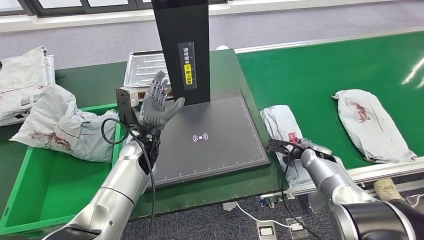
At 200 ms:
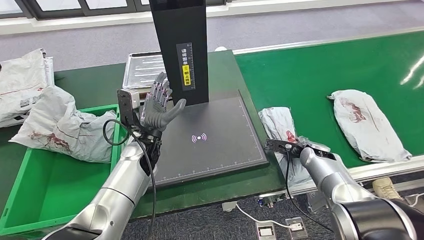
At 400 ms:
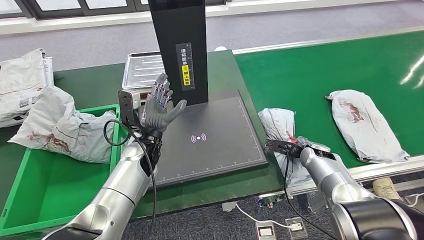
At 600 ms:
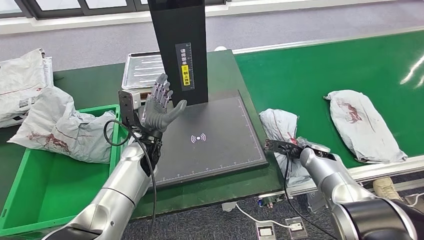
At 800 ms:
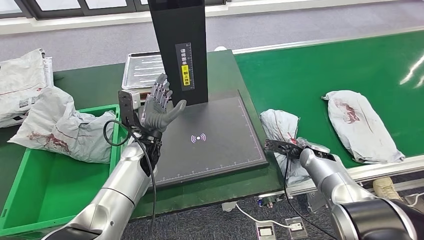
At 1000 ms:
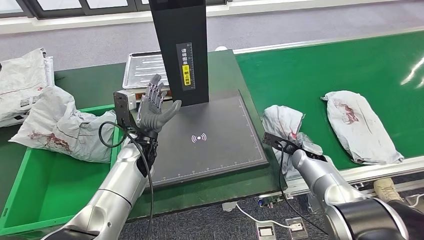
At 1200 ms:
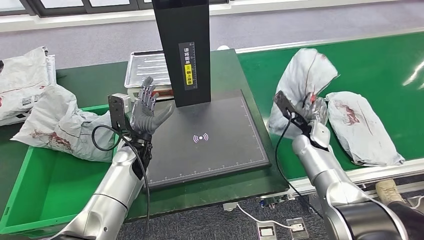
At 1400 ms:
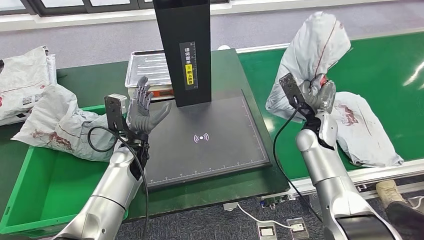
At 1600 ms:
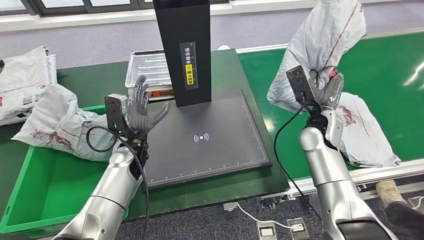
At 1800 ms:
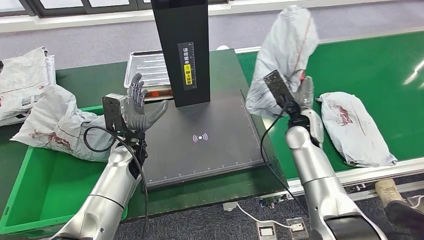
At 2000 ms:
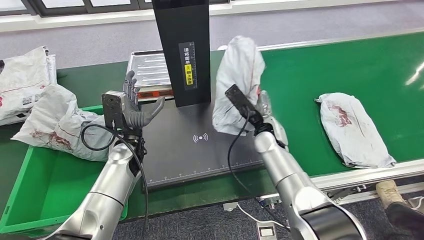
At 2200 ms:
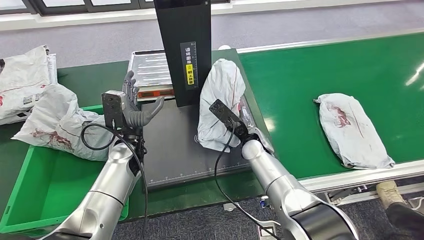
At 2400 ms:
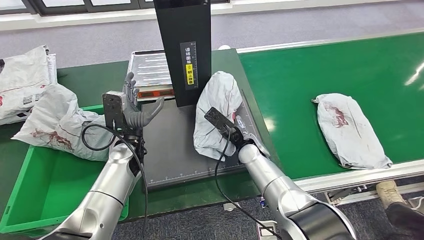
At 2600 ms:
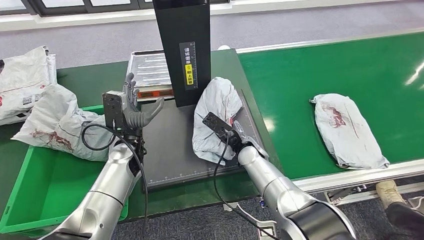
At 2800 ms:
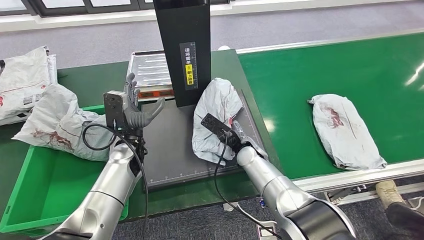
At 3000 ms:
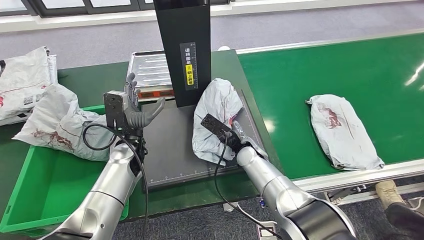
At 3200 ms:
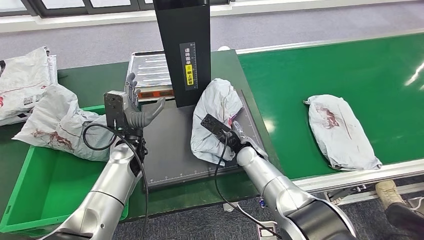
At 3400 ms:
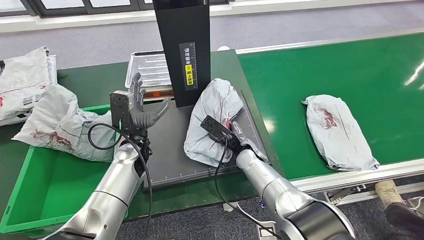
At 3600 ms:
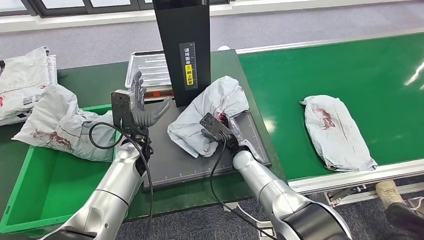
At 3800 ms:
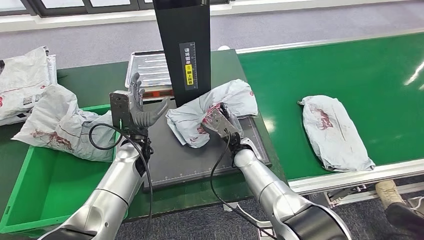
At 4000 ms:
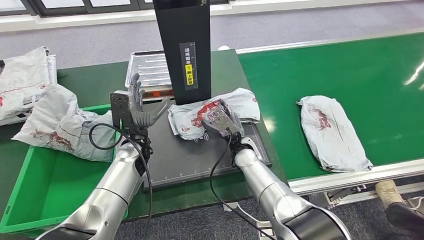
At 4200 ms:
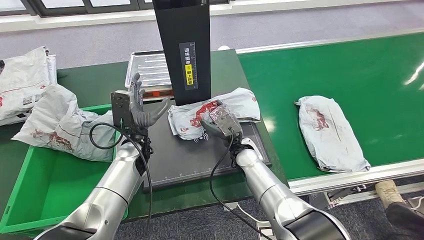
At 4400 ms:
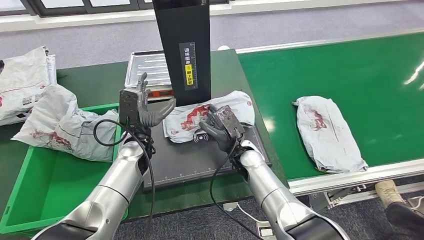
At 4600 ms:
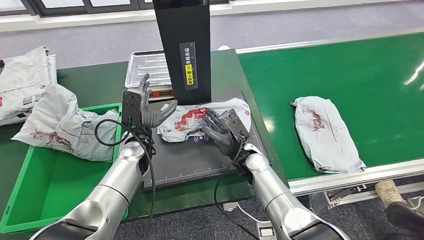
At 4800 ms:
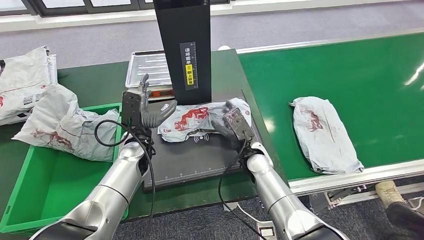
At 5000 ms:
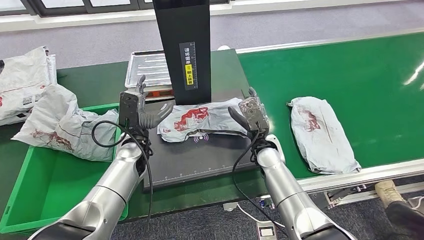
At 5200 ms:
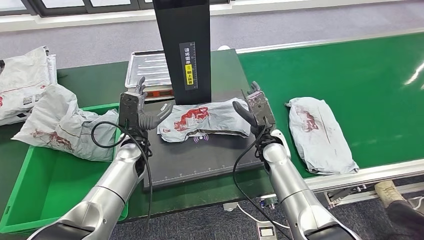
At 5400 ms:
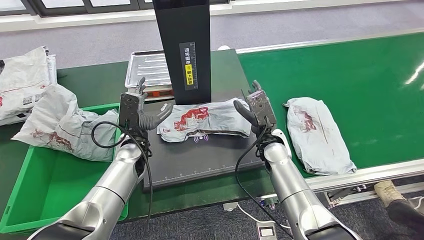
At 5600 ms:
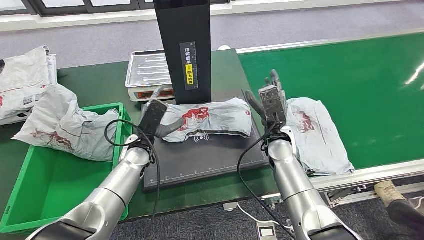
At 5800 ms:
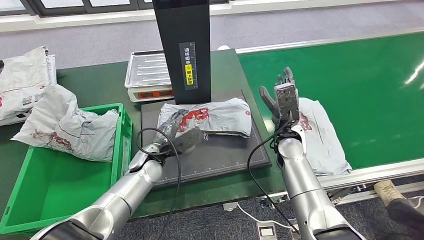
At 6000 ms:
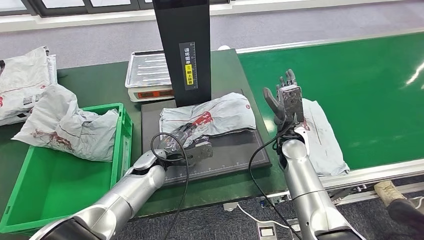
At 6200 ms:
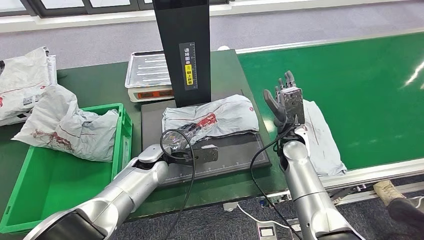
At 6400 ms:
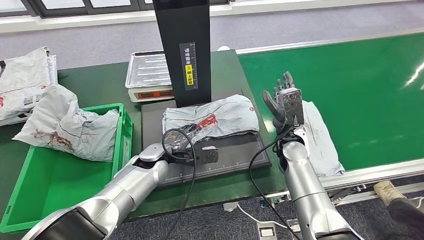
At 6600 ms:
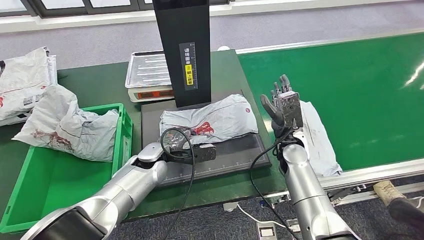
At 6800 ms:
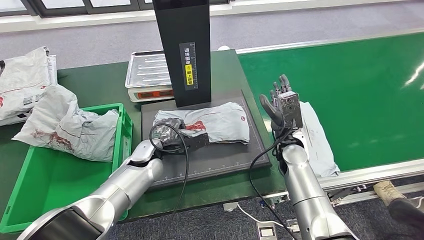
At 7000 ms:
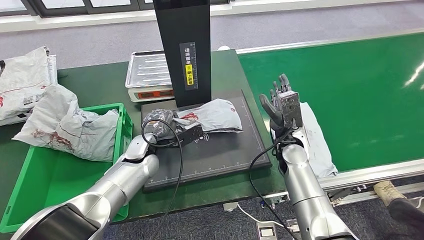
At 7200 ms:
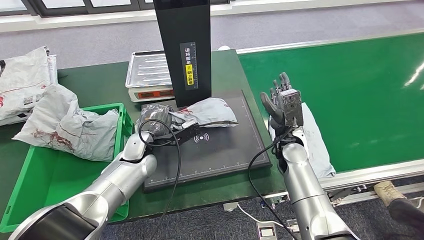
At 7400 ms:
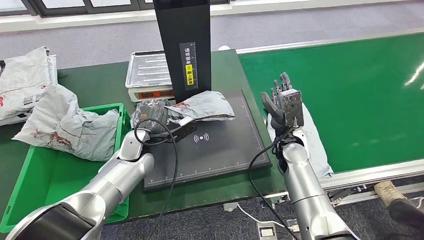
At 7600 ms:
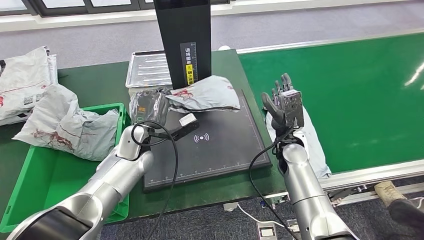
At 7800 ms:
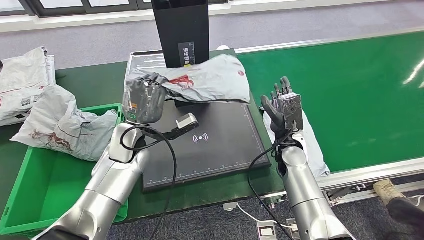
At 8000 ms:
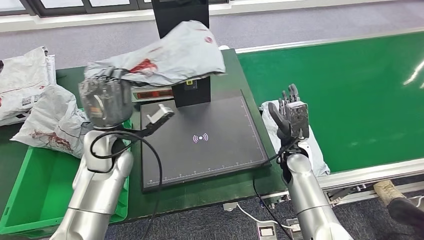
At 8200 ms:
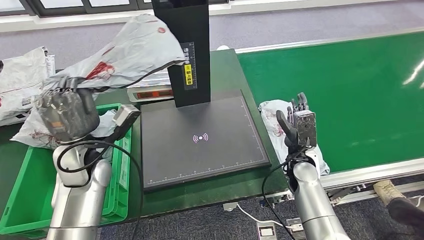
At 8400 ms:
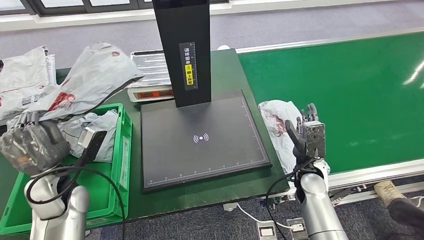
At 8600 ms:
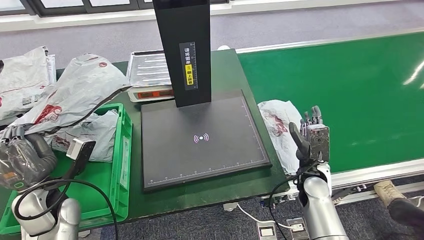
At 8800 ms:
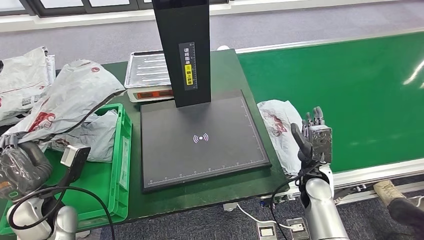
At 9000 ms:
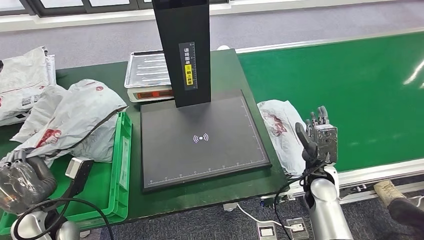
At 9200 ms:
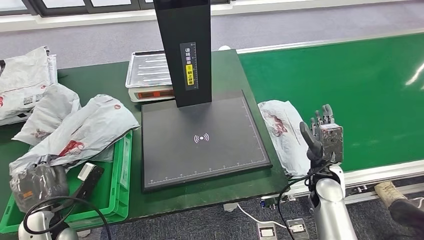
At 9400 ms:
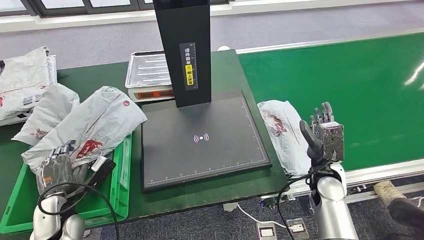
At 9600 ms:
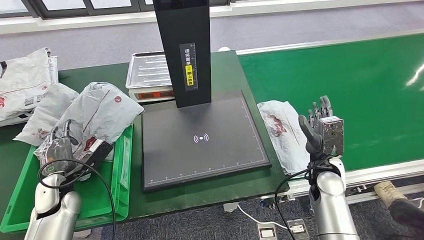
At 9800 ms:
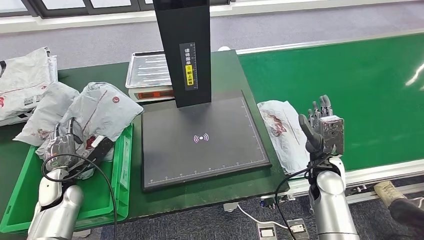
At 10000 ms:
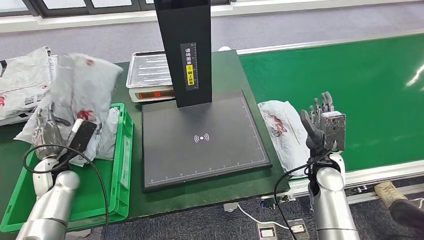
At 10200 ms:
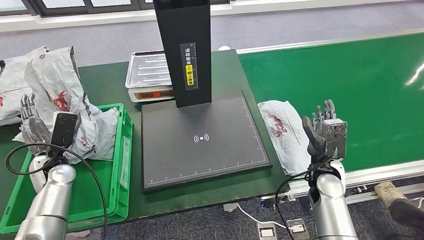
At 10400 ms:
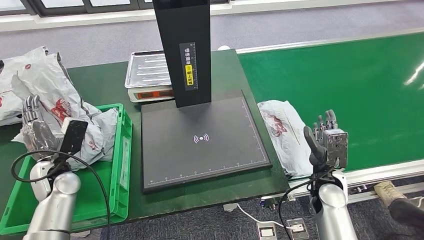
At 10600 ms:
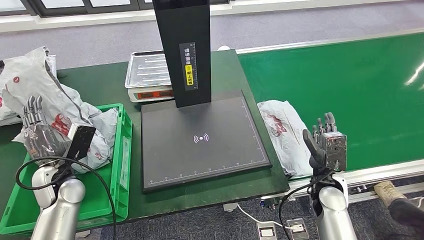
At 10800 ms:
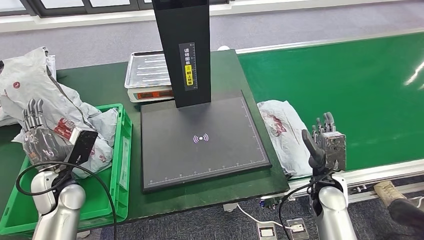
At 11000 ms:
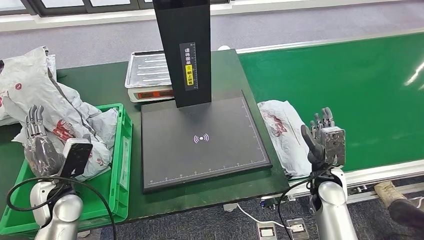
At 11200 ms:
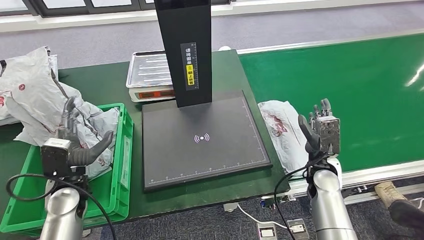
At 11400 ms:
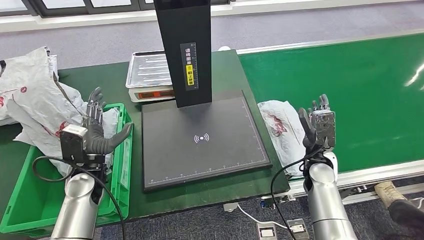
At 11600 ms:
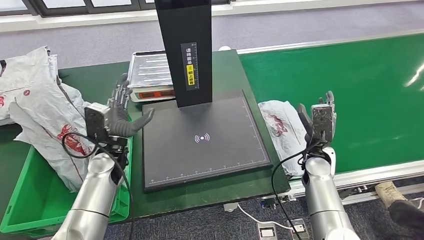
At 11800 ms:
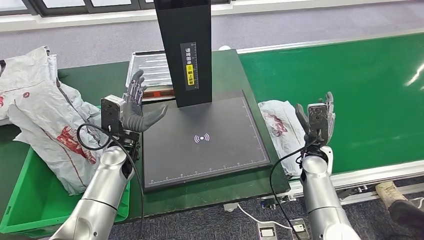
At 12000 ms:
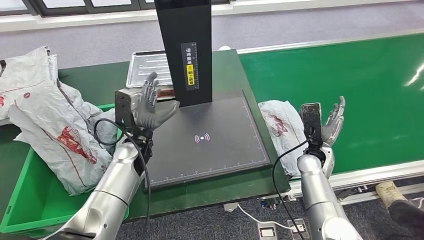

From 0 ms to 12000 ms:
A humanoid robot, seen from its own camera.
Step, from 0 ms to 1800 ms: Pick up the parcel from the conveyor belt.
Step, from 2200 ms to 5800 ms: Place the parcel onto the inbound machine.
Step, from 6000 ms to 7800 ms: Pick up the parcel from the inbound machine.
Step, from 8200 ms to 11200 ms: Place the parcel into the delivery box.
From 6000 ms to 7600 ms: The left hand shifts approximately 5 cm upward.
From 9000 ms to 10400 ms: The left hand goes approximately 10 cm forward.

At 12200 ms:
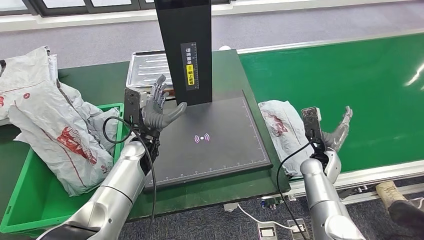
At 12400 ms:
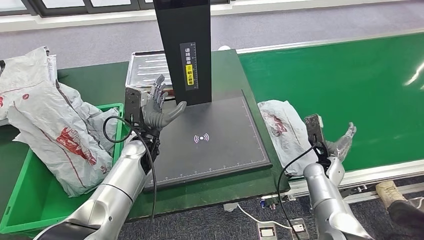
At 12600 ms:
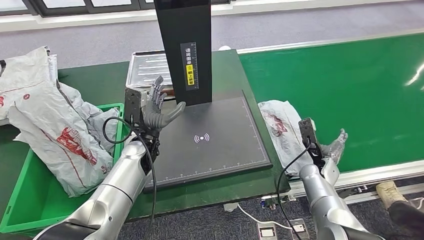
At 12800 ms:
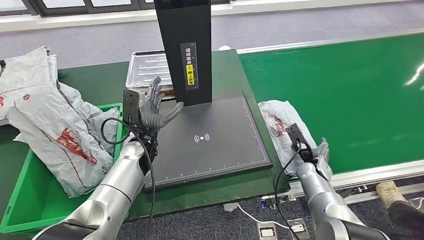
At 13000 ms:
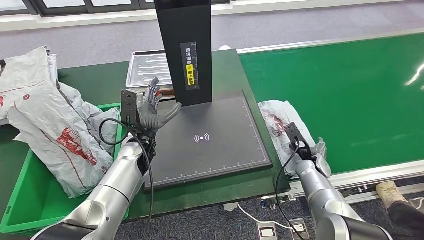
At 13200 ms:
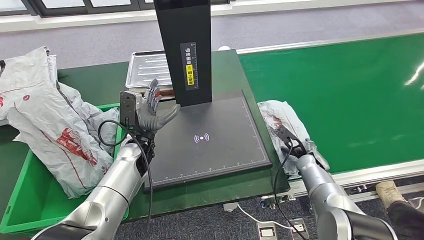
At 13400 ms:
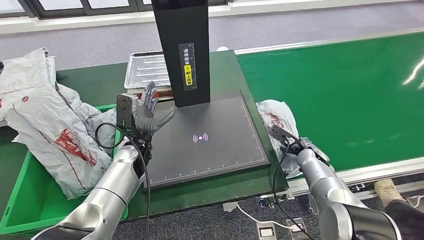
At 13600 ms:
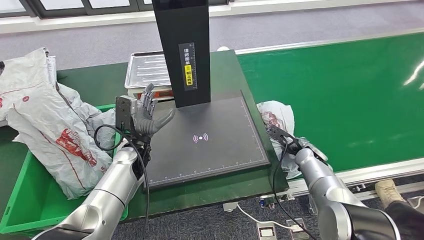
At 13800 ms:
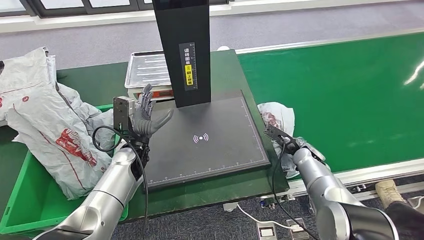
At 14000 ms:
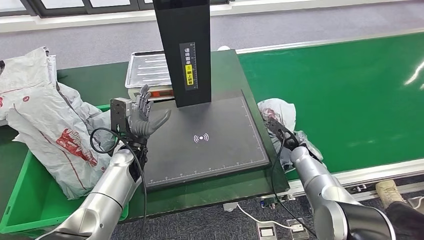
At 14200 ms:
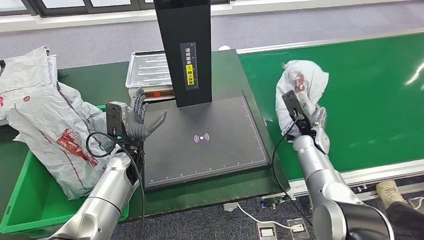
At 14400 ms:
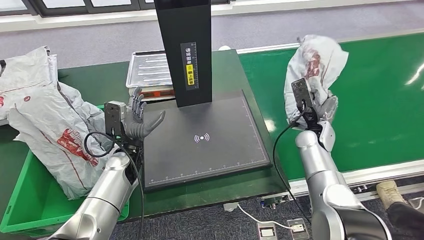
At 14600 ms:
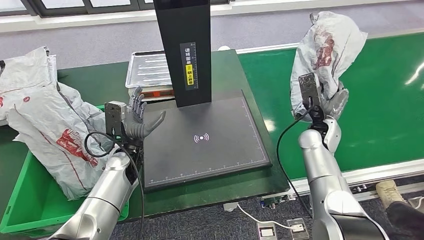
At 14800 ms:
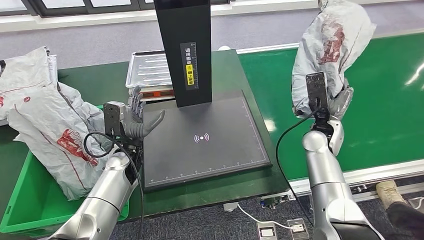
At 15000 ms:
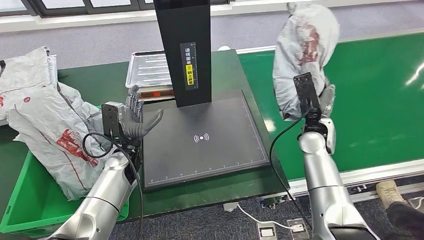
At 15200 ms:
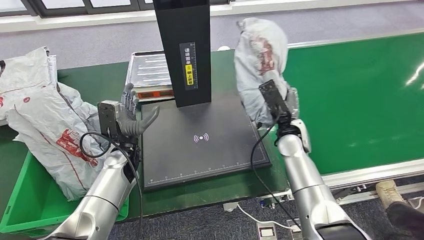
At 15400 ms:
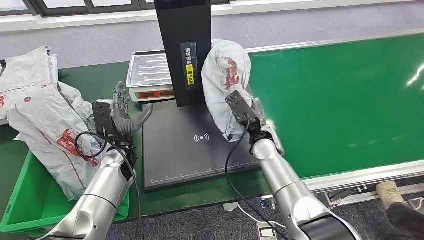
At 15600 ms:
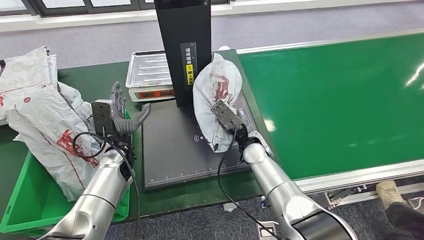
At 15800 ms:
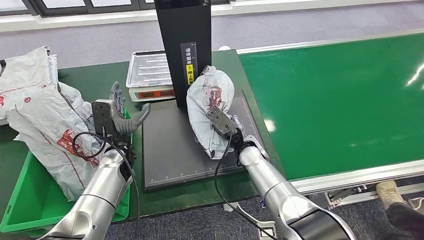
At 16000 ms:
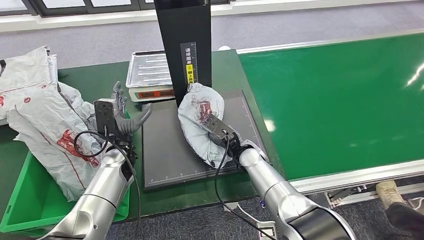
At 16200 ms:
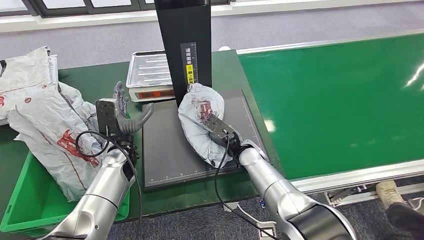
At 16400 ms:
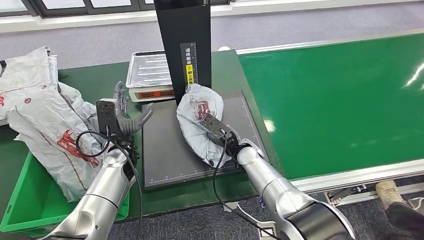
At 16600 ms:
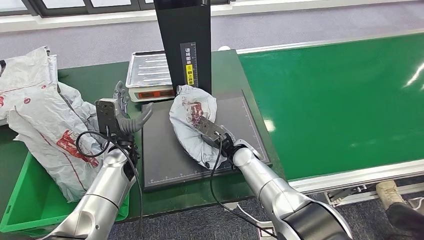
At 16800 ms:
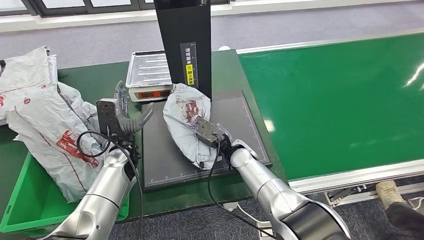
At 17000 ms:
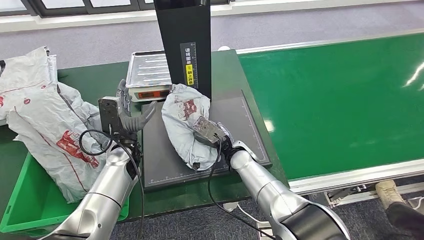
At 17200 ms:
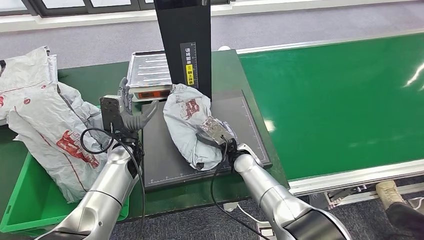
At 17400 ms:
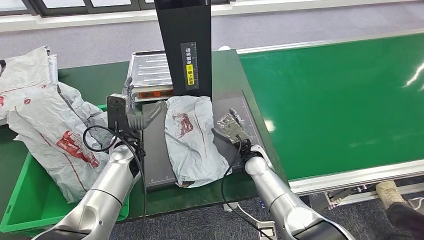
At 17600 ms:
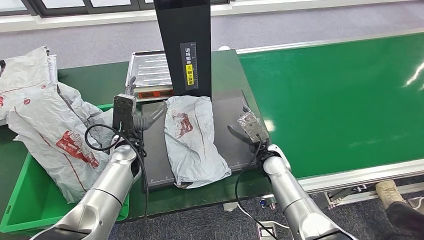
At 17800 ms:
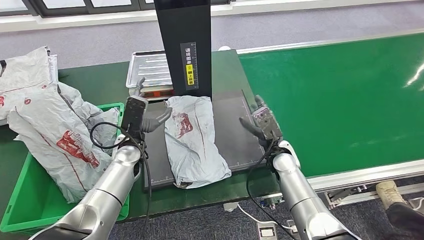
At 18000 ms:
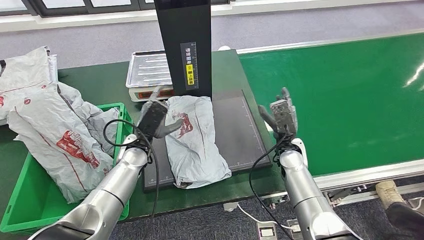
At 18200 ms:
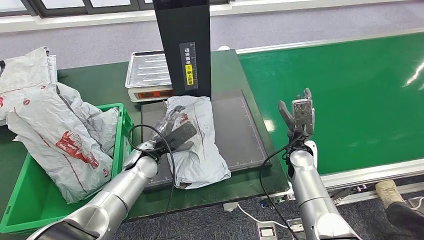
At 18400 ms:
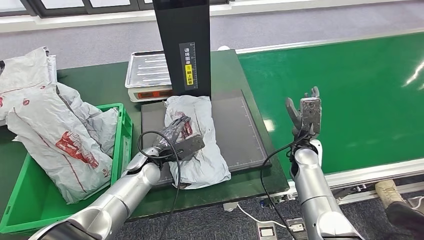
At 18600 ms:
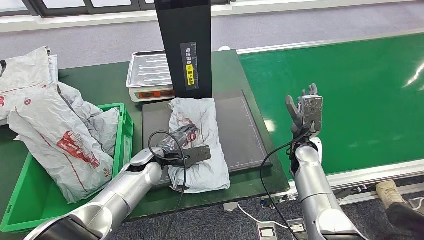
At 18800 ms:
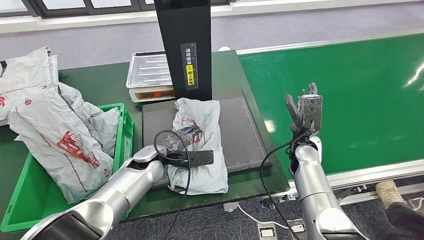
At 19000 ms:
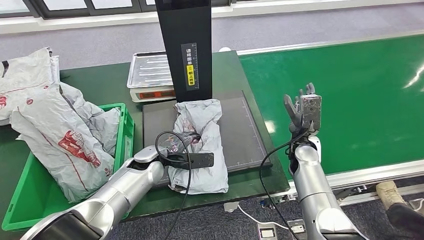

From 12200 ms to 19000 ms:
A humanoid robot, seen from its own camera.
Step, from 12200 ms to 14800 ms: Pick up the parcel from the conveyor belt.
Step, from 15200 ms to 18000 ms: Place the parcel onto the inbound machine.
From 16200 ms to 17600 ms: The right hand goes roughly 5 cm to the right.
